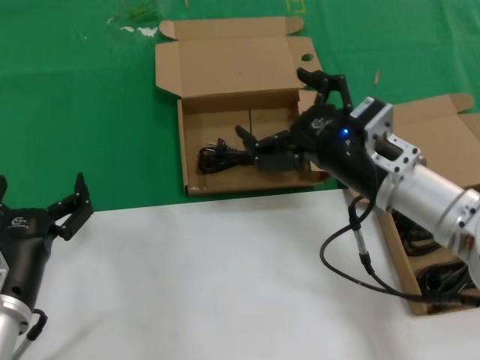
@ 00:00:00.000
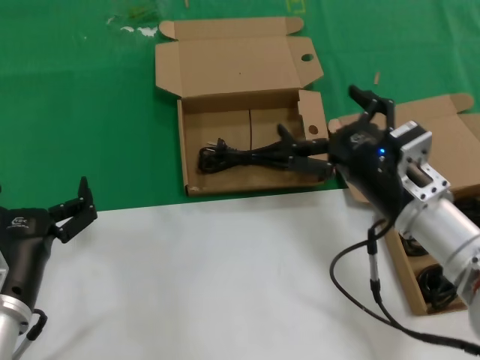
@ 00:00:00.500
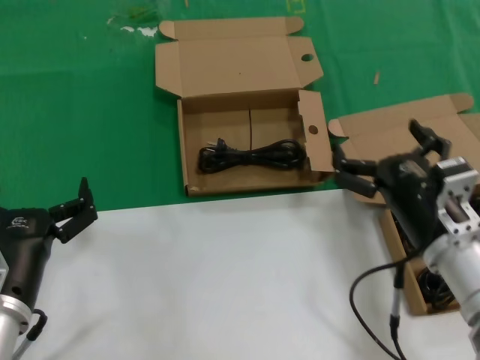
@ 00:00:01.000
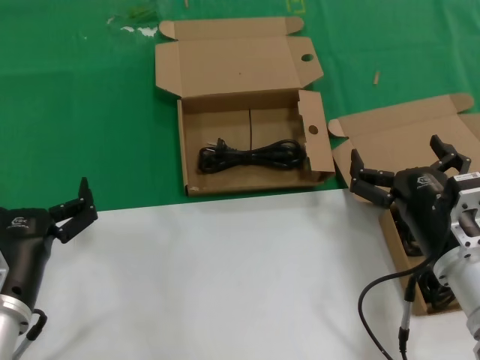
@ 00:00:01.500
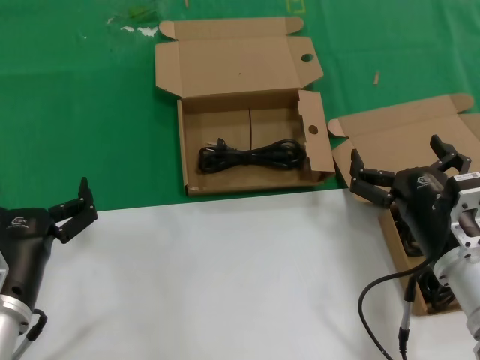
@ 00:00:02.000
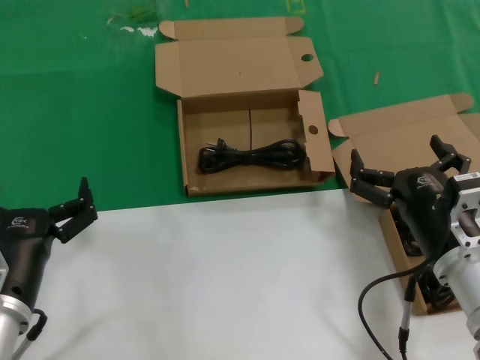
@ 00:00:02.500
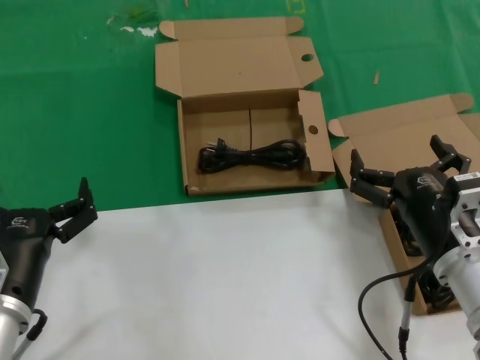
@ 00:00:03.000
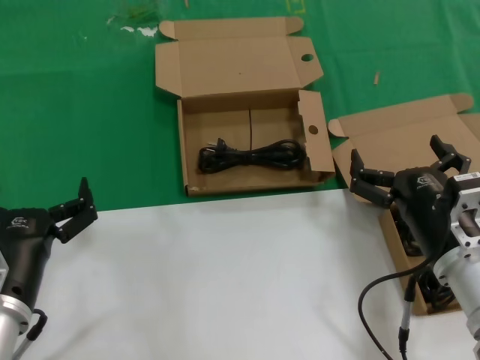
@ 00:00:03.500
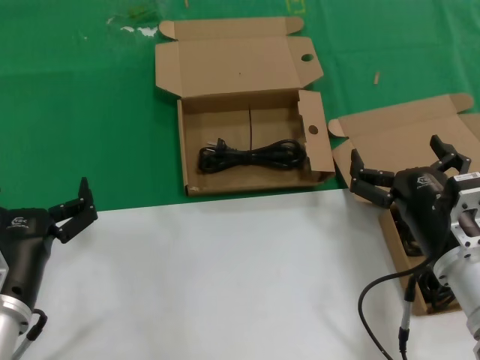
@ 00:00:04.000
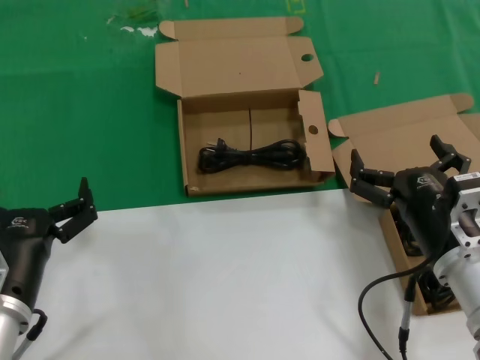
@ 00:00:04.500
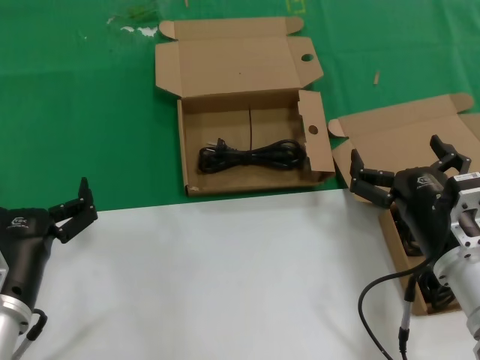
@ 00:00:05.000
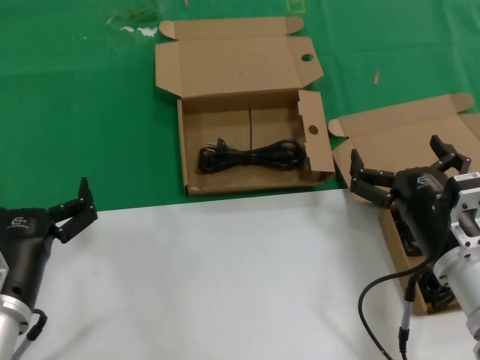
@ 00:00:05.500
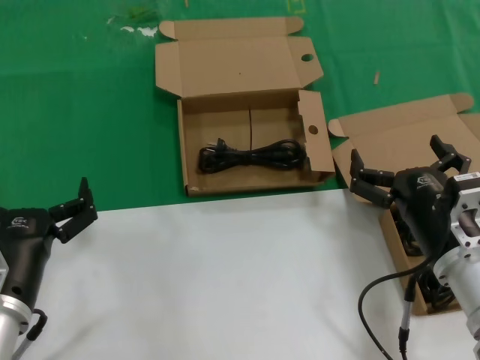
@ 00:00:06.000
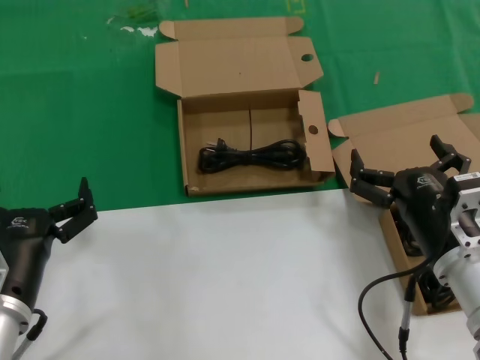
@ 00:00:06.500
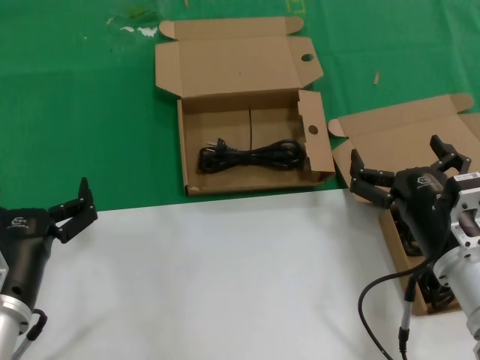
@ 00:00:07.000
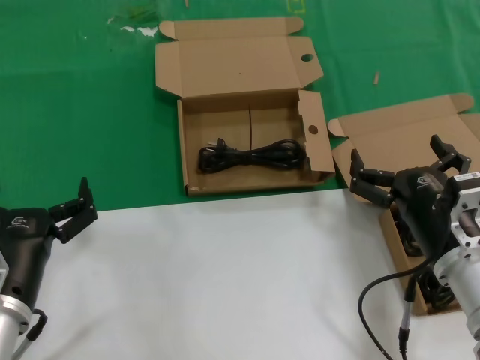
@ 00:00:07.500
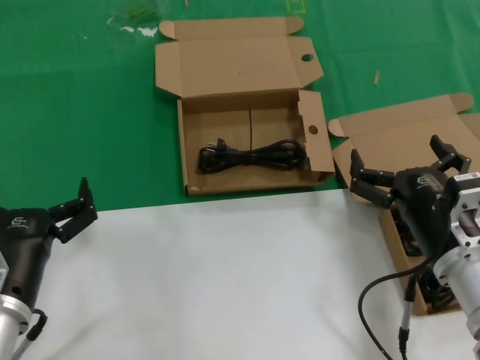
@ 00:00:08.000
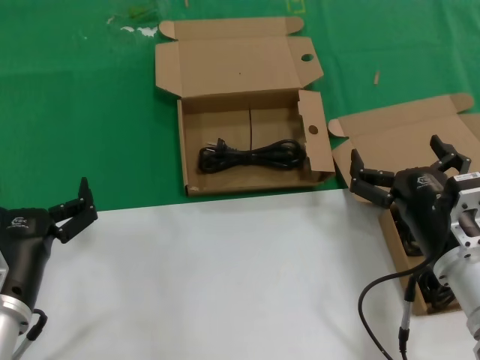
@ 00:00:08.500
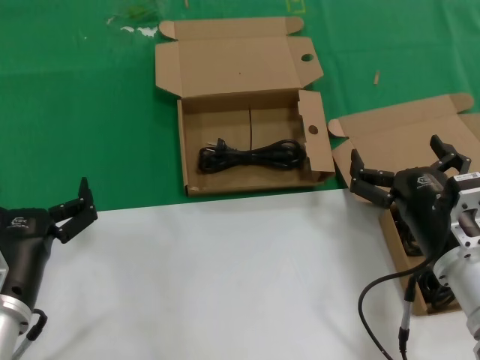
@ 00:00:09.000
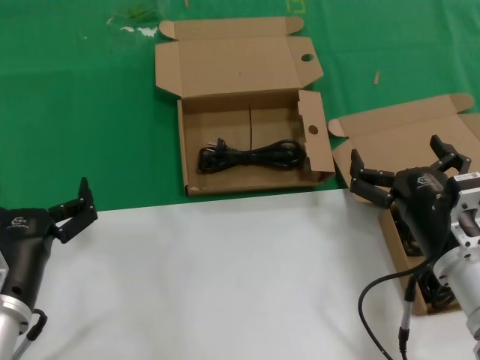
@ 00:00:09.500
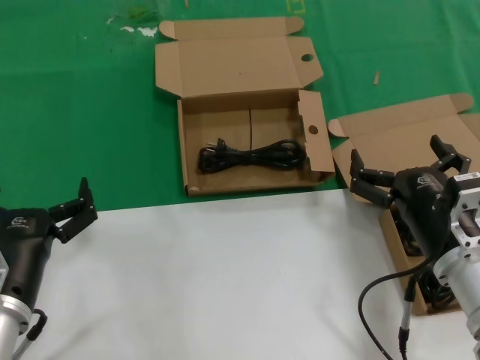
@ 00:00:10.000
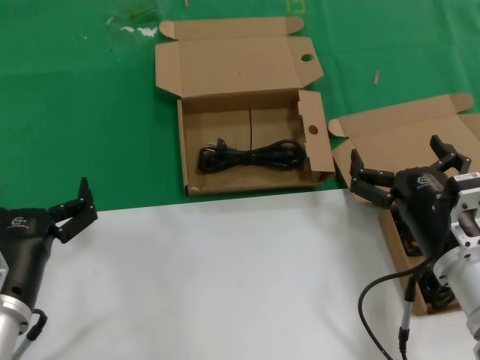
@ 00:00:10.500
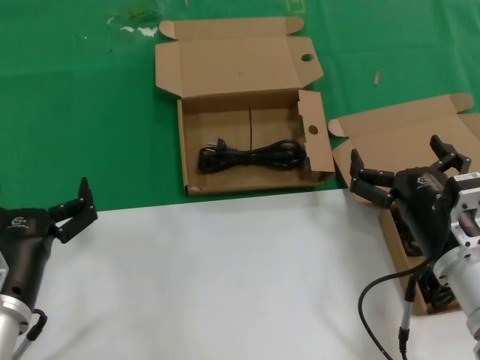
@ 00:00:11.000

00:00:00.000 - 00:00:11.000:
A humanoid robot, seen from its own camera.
Task of the whole recording: take the parts from the box containing them and put them into an empty box.
00:00:00.000 - 00:00:02.000: The right hand heads downward and backward, covering some 10 cm.
00:00:02.000 - 00:00:11.000: Neither hand changes place.

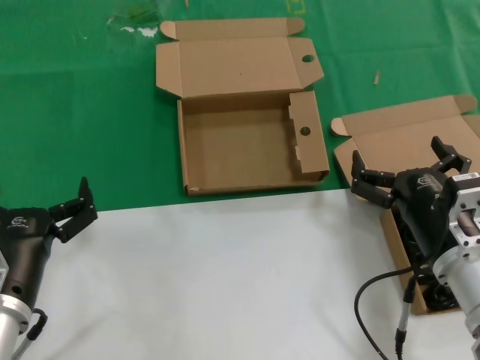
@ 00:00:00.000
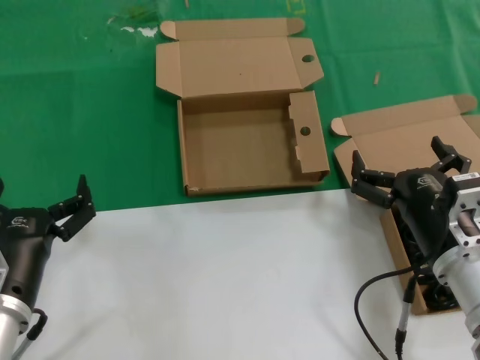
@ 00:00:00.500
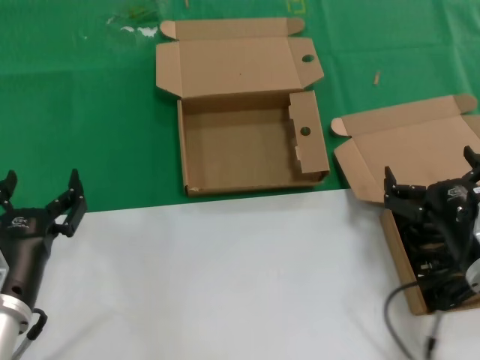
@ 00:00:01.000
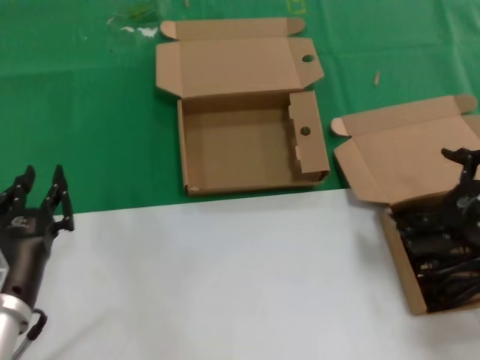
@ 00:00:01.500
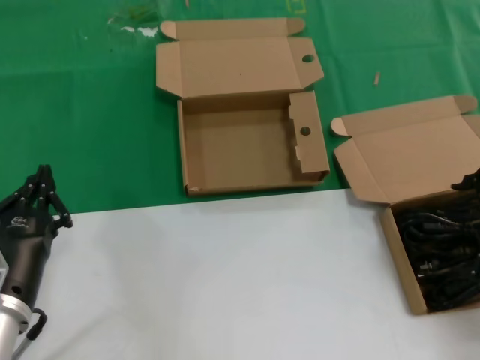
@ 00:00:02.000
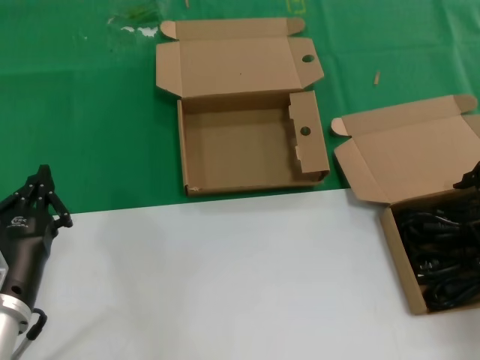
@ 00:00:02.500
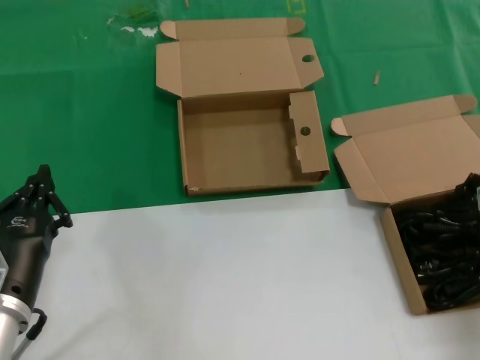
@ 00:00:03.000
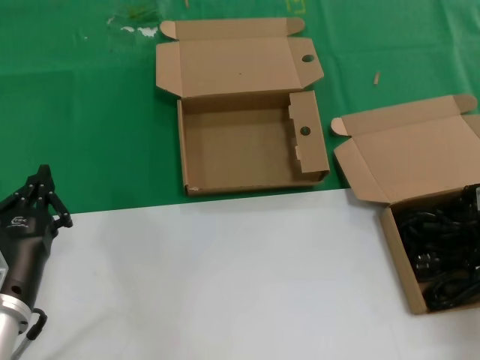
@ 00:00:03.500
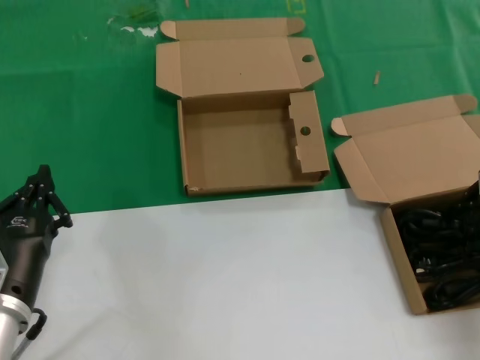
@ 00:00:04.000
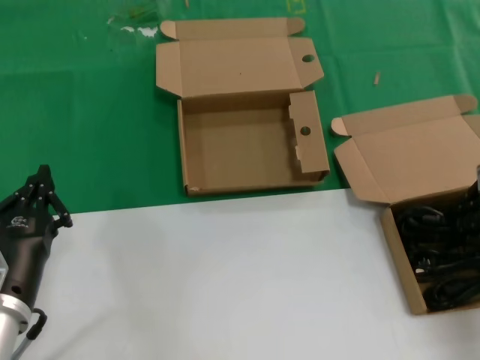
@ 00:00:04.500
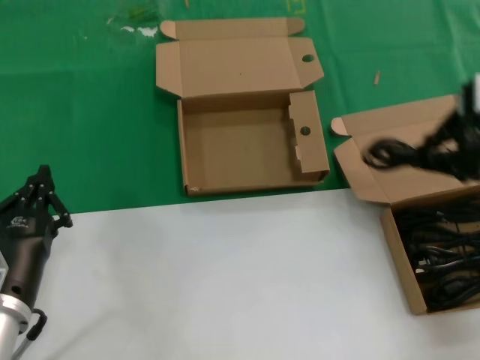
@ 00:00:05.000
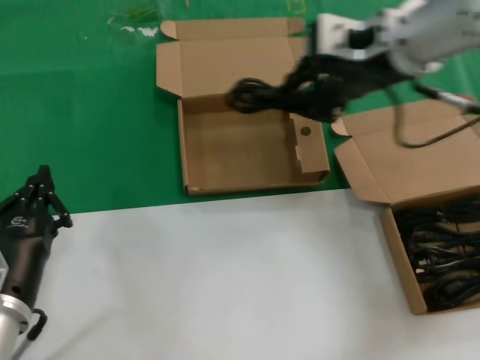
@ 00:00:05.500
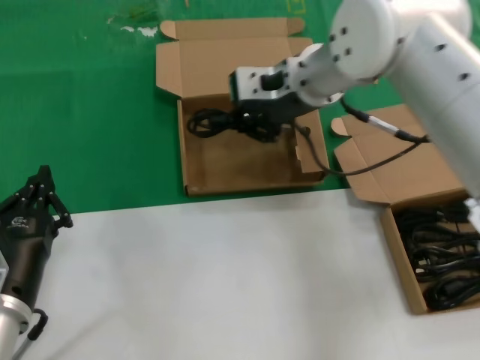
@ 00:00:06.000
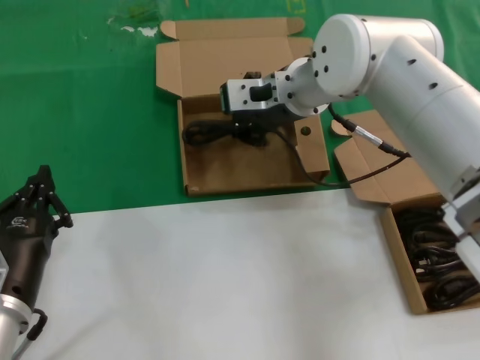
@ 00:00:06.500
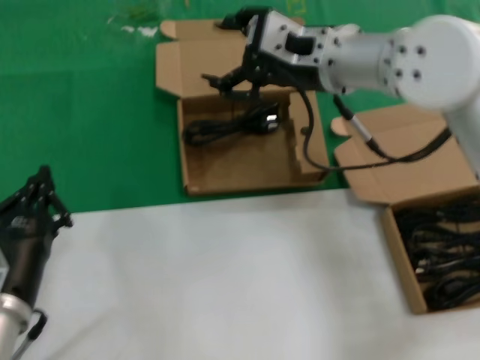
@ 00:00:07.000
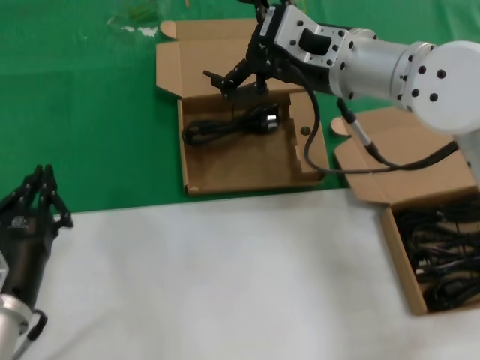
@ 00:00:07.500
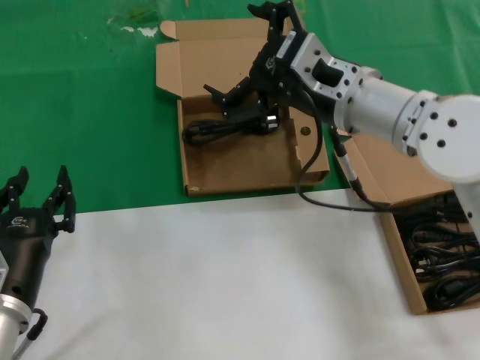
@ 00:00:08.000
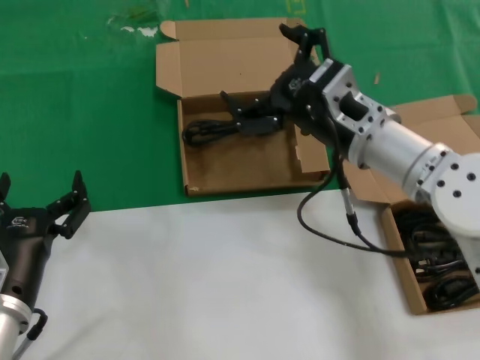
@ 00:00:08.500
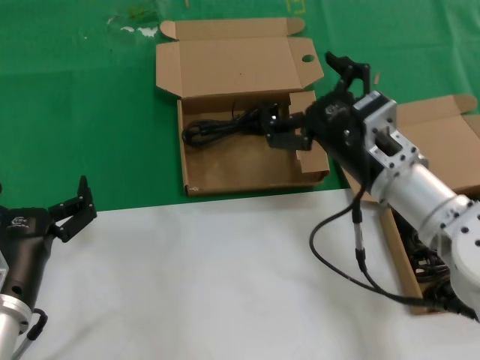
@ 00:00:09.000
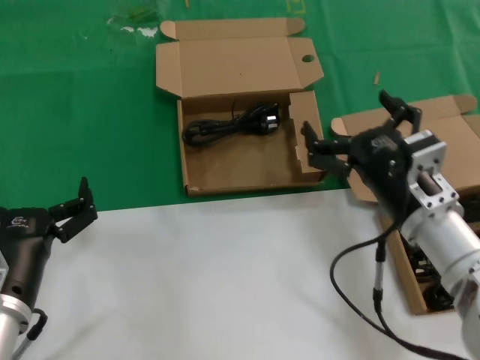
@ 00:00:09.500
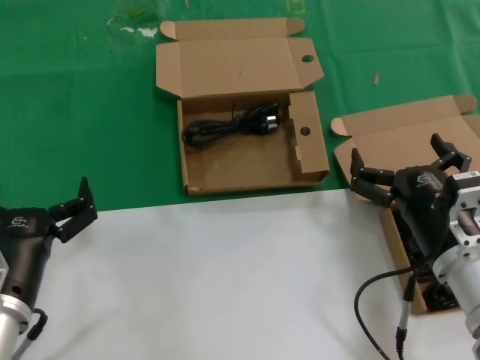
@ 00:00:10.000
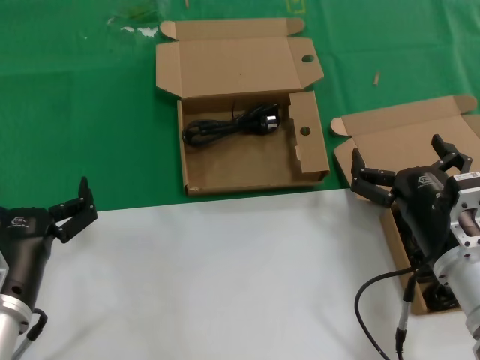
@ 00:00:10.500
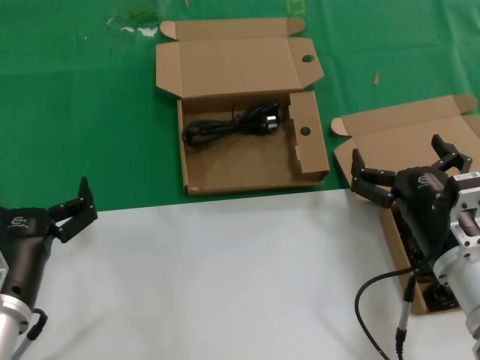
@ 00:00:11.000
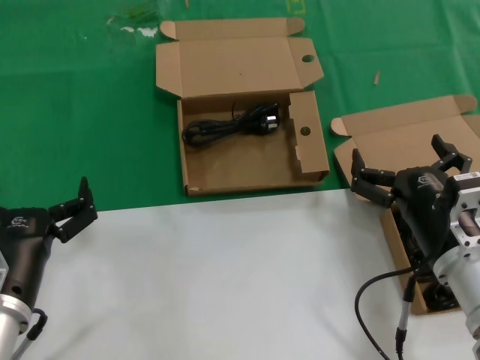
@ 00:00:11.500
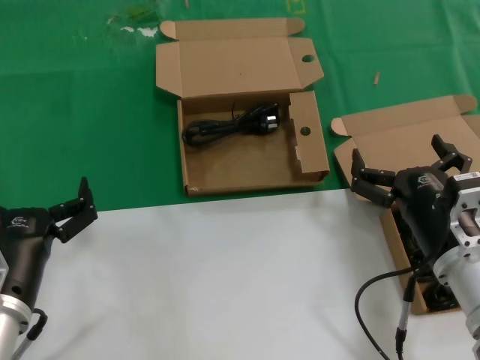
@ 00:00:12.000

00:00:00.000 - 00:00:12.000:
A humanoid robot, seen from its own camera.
Task of the whole recording: take the parts from the box containing them and put them into an empty box.
Step, 00:00:00.000 - 00:00:04.000: Grasp the data cable.
Step, 00:00:04.500 - 00:00:06.500: Place the data cable in the another box.
00:00:00.000 - 00:00:02.000: The right hand heads to the right and upward, covering about 20 cm.
00:00:04.000 - 00:00:06.000: The right hand is displaced to the left and forward by approximately 30 cm.
00:00:06.000 - 00:00:08.000: The right hand heads backward, covering about 10 cm.
00:00:08.000 - 00:00:10.000: The right hand shifts about 25 cm downward, backward and to the right.
00:00:10.000 - 00:00:12.000: Both hands stay about where they are.

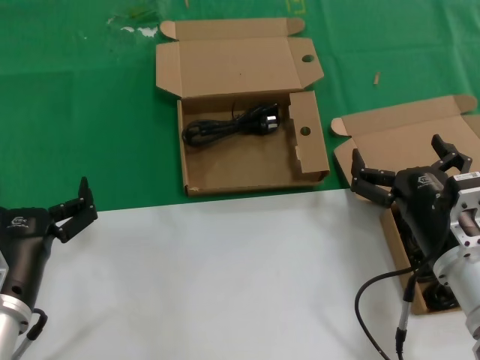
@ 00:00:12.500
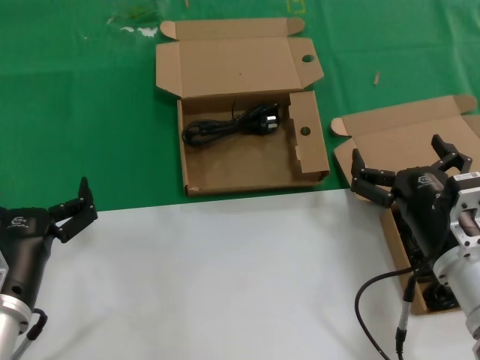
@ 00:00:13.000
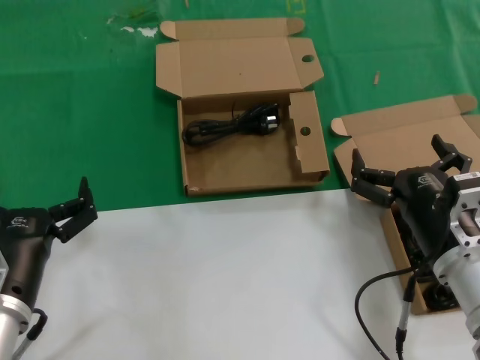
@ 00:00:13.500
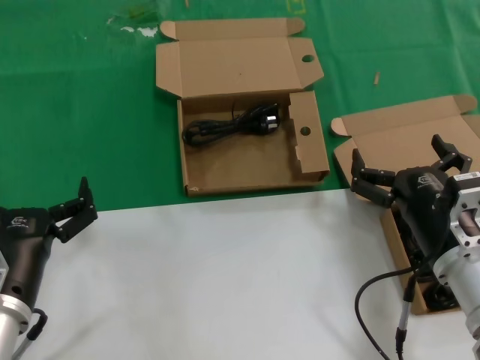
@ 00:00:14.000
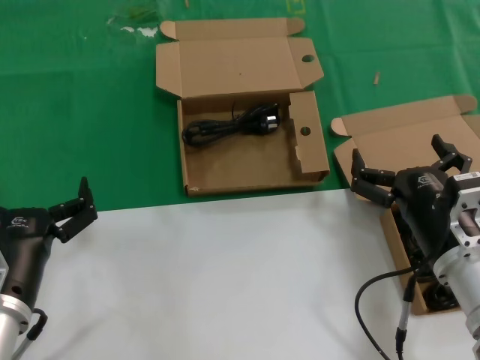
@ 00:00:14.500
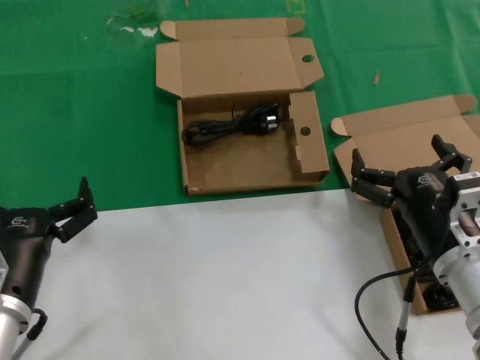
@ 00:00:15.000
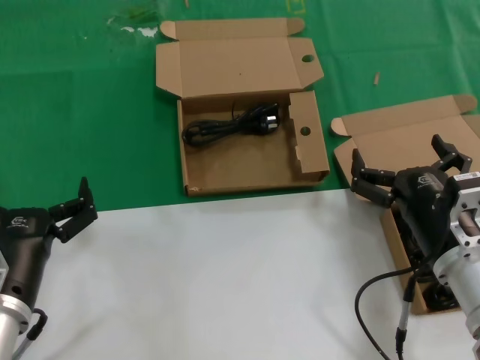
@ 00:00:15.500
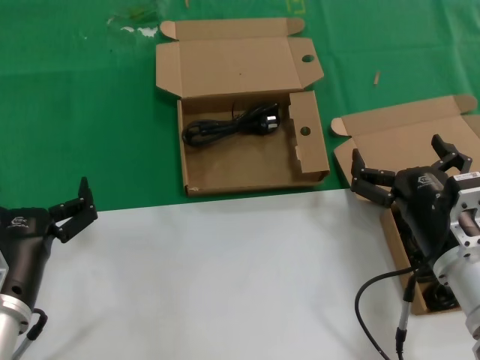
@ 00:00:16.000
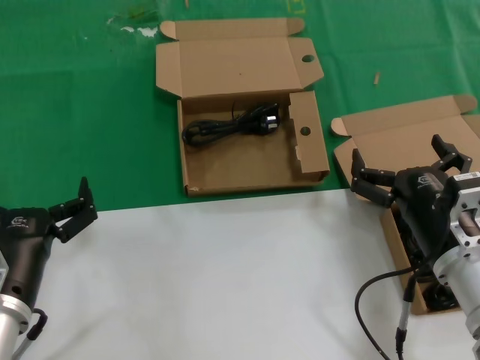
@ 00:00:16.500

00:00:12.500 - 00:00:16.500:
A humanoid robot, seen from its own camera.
Task of the whole recording: take the parts from the box containing them and put them into an empty box.
00:00:12.500 - 00:00:16.500: Neither hand changes place.
